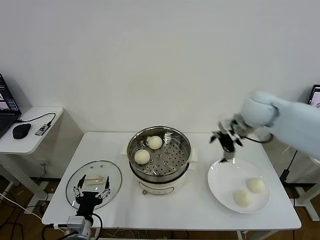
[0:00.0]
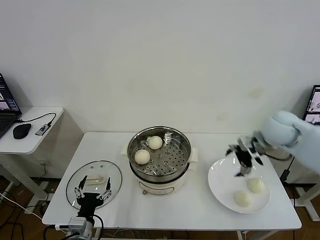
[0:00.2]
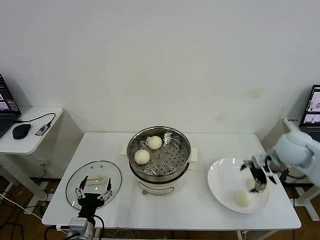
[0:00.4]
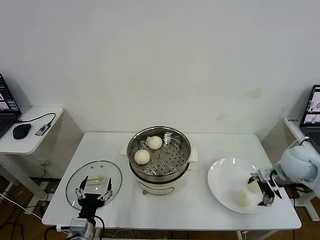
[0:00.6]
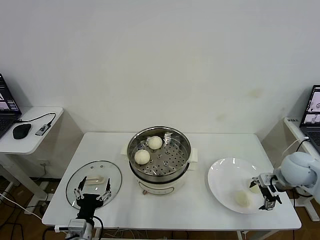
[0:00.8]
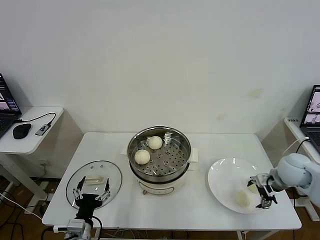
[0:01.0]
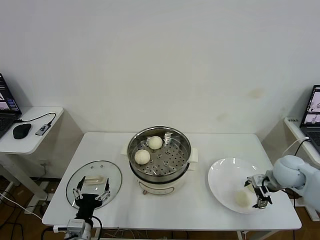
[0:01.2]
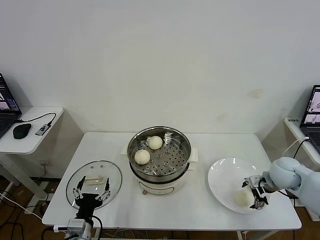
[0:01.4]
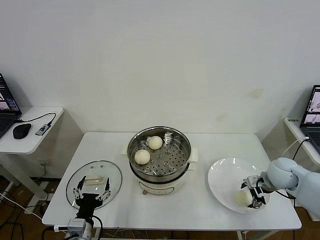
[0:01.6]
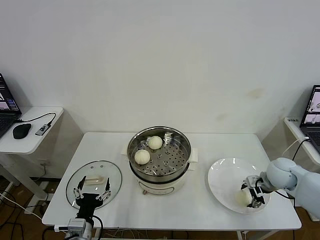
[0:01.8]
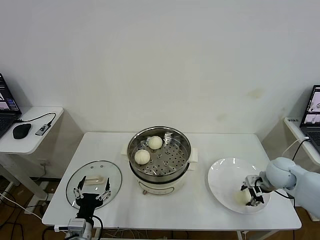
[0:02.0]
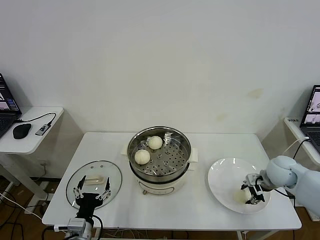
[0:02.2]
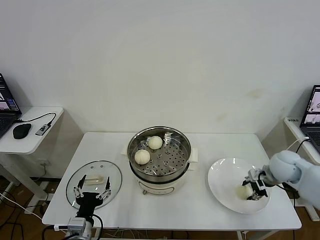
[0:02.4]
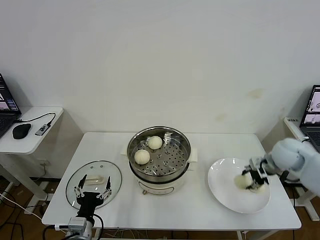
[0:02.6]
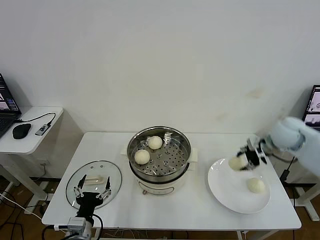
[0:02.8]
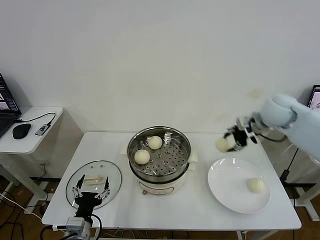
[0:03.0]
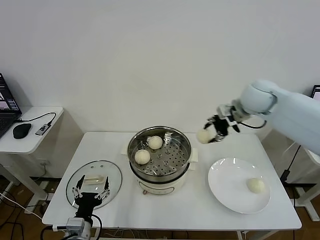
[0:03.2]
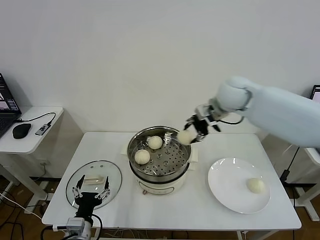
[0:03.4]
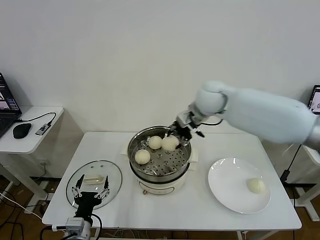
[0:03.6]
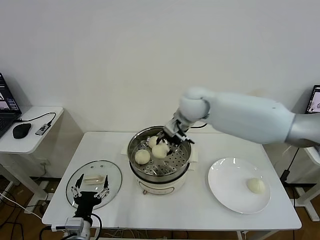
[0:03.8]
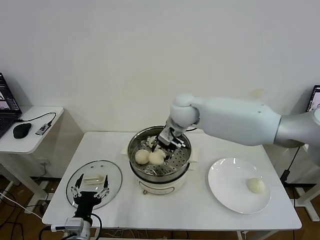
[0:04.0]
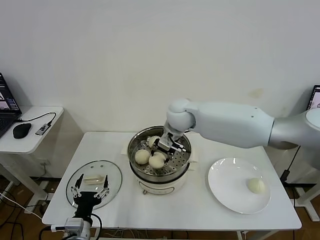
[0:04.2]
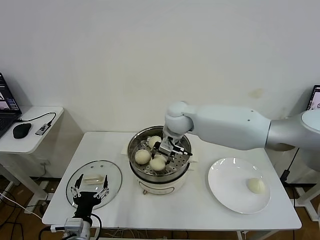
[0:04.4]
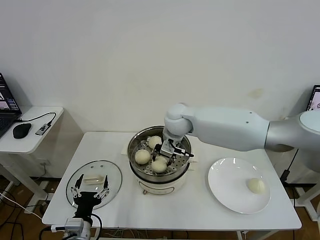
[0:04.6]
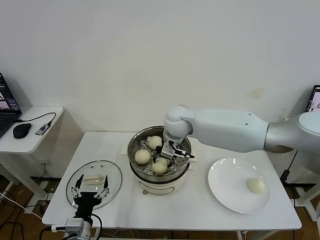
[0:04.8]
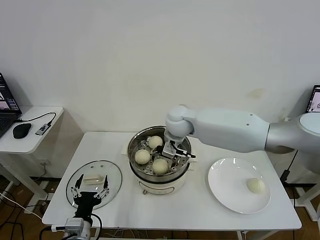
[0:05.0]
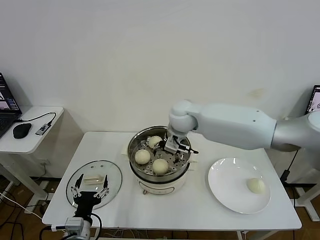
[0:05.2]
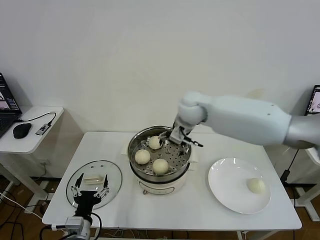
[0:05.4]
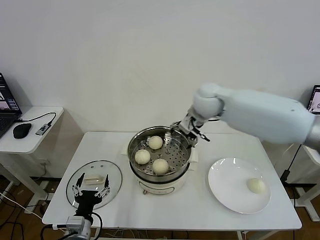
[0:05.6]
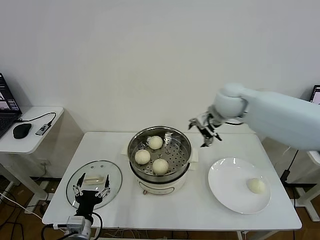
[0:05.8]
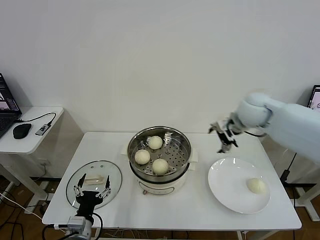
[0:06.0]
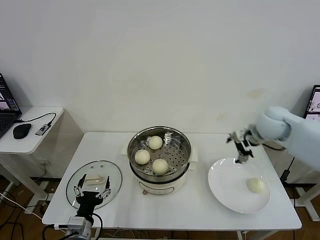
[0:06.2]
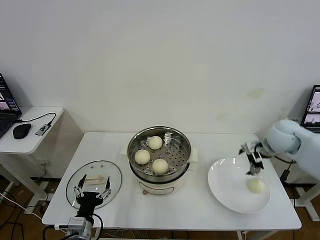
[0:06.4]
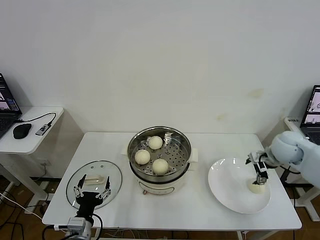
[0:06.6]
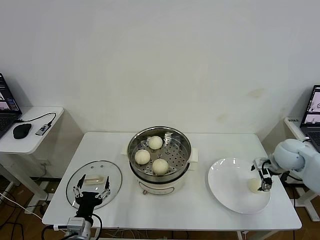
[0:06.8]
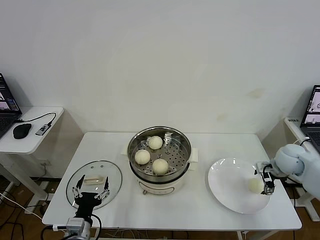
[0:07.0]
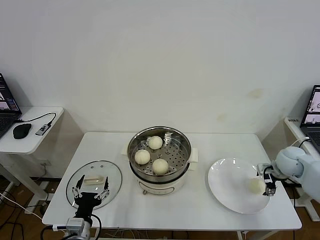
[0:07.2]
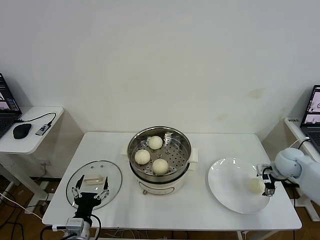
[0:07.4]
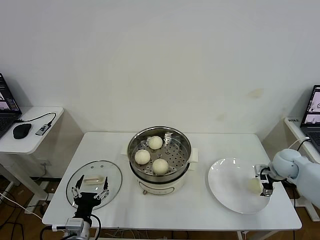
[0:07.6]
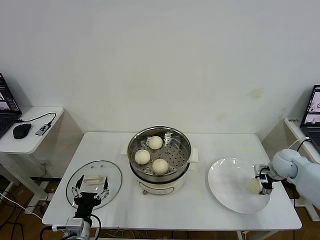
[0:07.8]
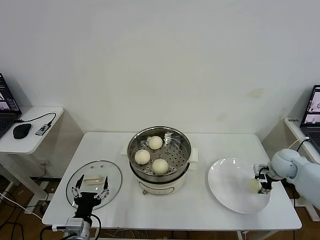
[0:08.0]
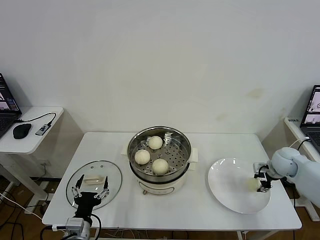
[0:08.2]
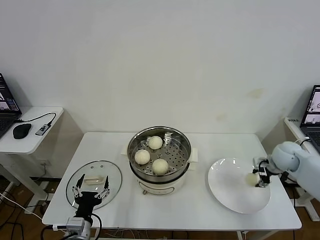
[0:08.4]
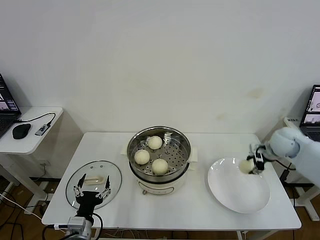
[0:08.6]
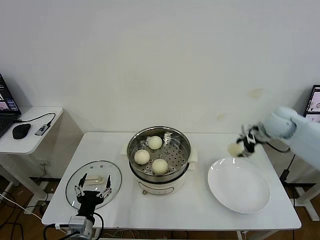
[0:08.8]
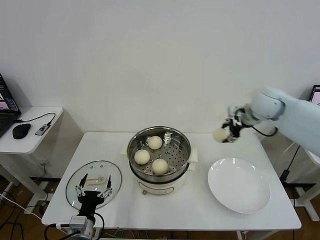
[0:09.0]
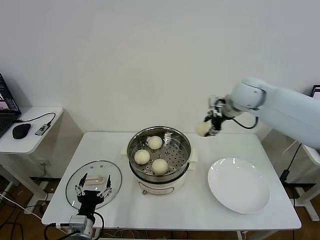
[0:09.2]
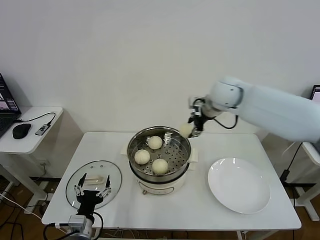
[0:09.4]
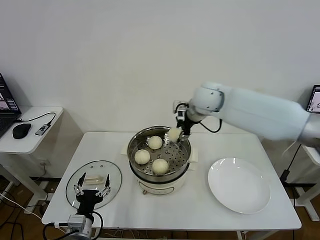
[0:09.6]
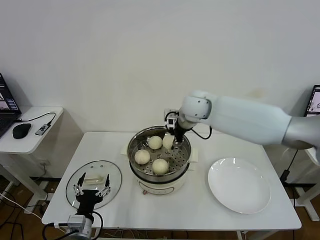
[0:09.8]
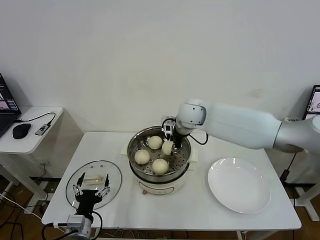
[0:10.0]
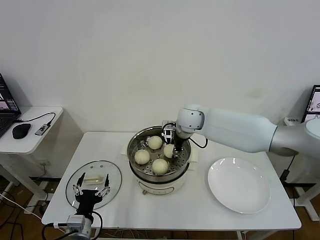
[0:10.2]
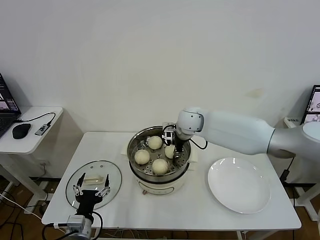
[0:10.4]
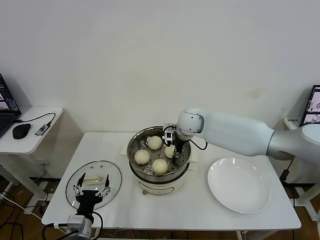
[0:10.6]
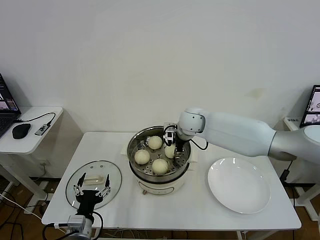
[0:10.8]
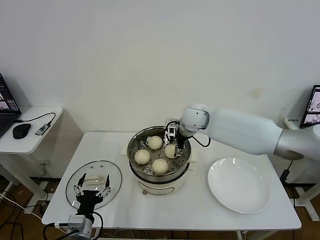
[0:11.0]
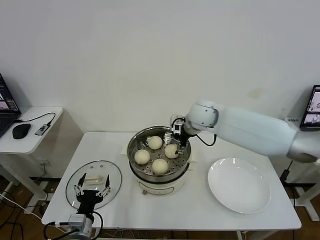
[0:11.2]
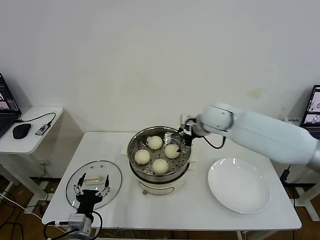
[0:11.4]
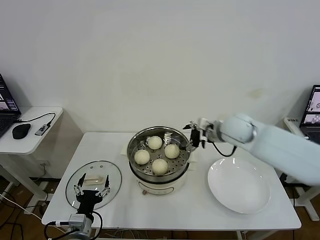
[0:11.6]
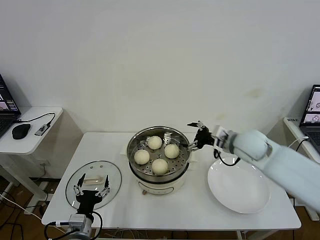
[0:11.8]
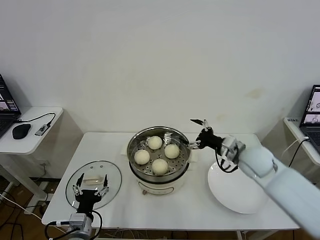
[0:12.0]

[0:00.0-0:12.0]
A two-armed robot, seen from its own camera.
Task of the whole recording: take steamed baozi put them in steamer then cover it.
Step, 0:00.0 to 0:02.0: Grasp the baozi in the plate with right gripper.
Step, 0:02.4 to 0:05.2: Place the baozi on the steamer with right gripper.
Step, 0:05.4 to 0:08.2: Grasp the baozi in the plate with right gripper.
Step, 0:08.4 to 0:11.0: Place the baozi on the steamer with right gripper.
0:00.0 to 0:01.6: The right gripper shifts approximately 20 cm downward, to the right and backward.
0:01.6 to 0:03.0: The right gripper shifts approximately 25 cm upward and forward, and closes its fingers.
0:03.0 to 0:04.4: The right gripper goes roughly 25 cm to the left.
0:04.4 to 0:06.0: The right gripper travels to the right by about 25 cm, and opens its fingers.
0:06.0 to 0:07.6: The right gripper moves downward and to the right, roughly 25 cm.
0:07.6 to 0:09.0: The right gripper is displaced upward and to the left by roughly 25 cm, and closes up.
0:09.0 to 0:10.4: The right gripper moves to the left and downward, approximately 25 cm.
0:10.4 to 0:12.0: The right gripper travels to the right and backward by approximately 25 cm, and opens its fingers.

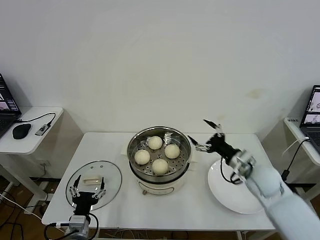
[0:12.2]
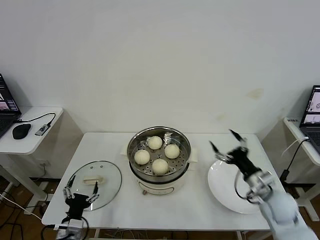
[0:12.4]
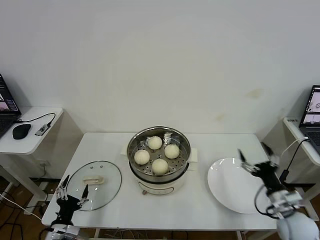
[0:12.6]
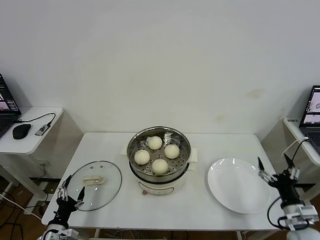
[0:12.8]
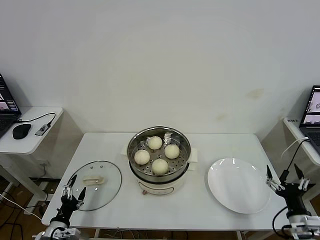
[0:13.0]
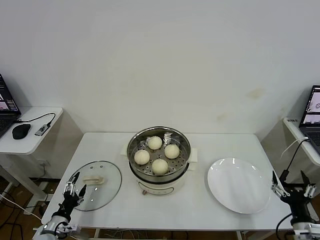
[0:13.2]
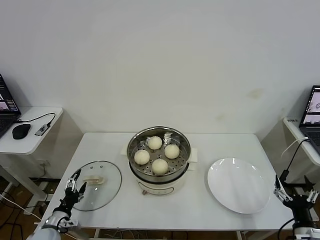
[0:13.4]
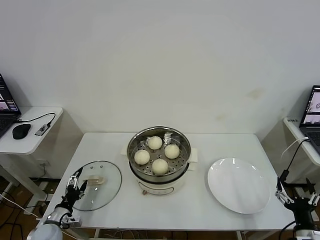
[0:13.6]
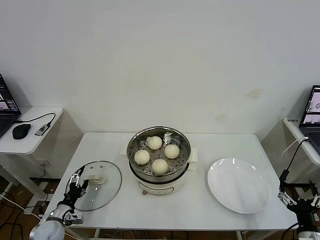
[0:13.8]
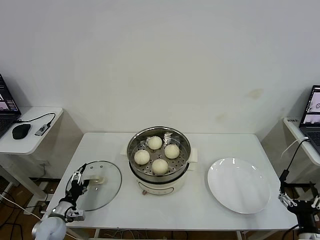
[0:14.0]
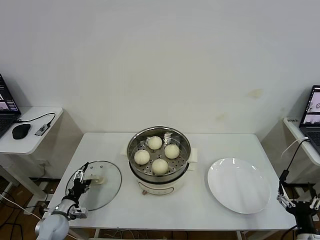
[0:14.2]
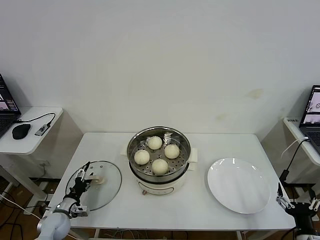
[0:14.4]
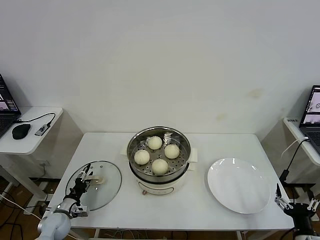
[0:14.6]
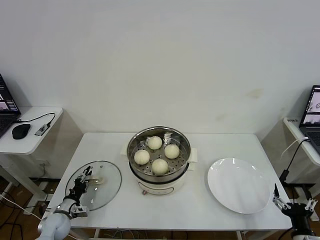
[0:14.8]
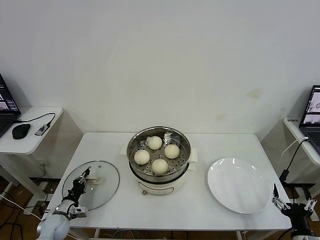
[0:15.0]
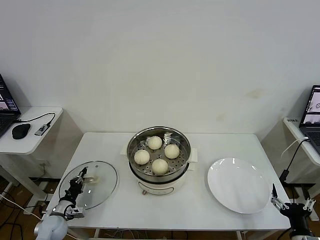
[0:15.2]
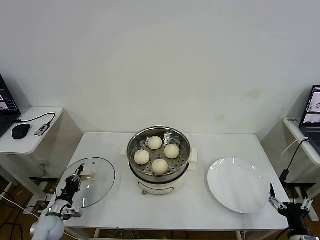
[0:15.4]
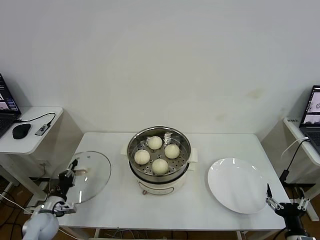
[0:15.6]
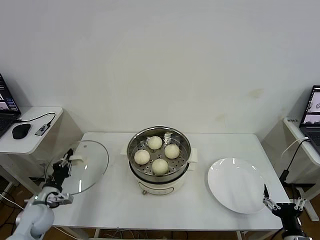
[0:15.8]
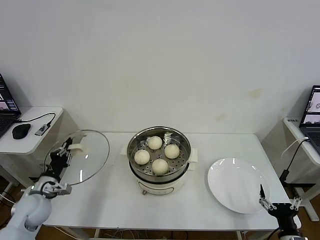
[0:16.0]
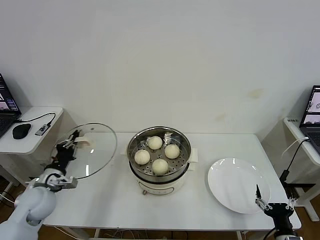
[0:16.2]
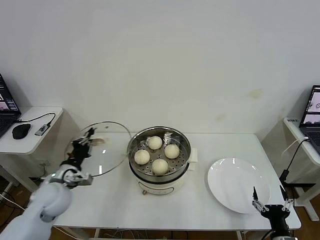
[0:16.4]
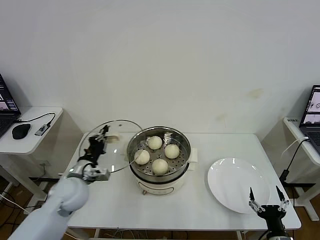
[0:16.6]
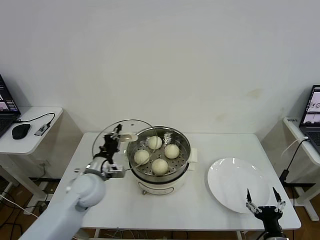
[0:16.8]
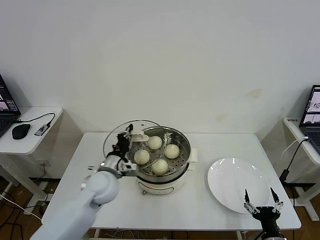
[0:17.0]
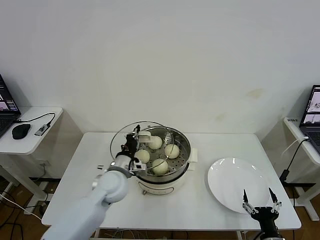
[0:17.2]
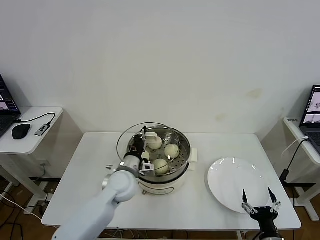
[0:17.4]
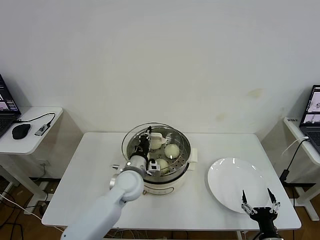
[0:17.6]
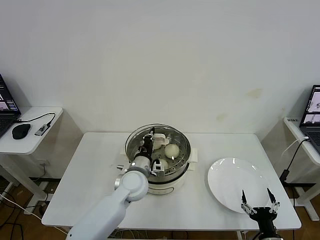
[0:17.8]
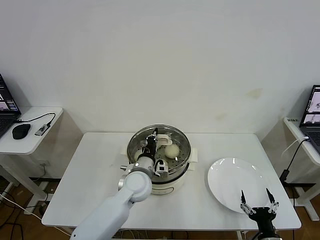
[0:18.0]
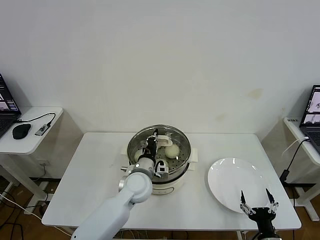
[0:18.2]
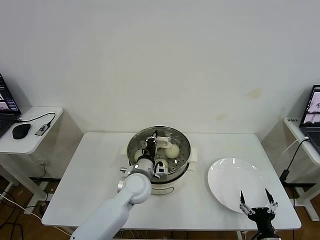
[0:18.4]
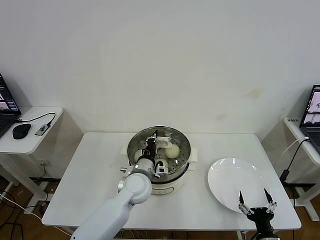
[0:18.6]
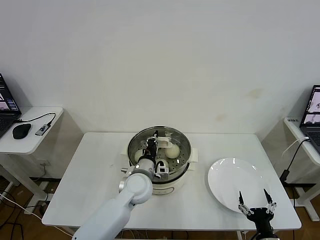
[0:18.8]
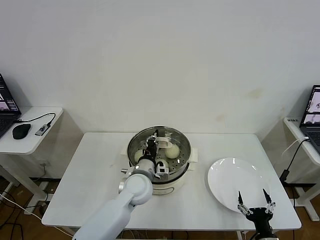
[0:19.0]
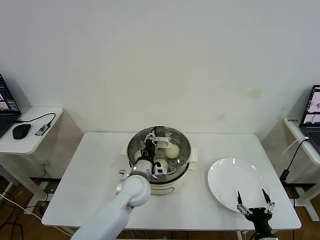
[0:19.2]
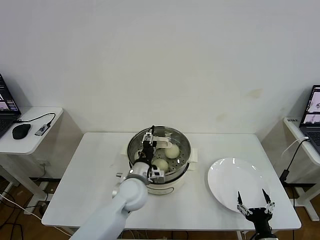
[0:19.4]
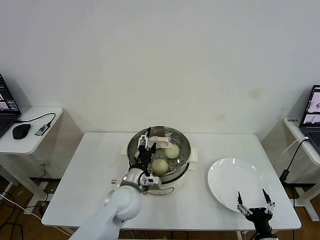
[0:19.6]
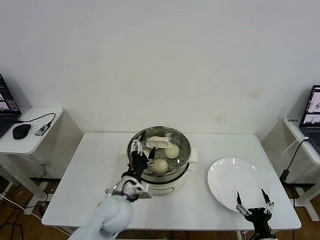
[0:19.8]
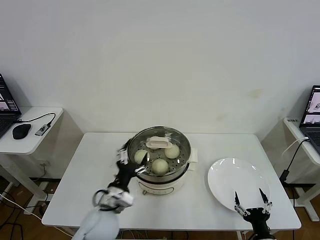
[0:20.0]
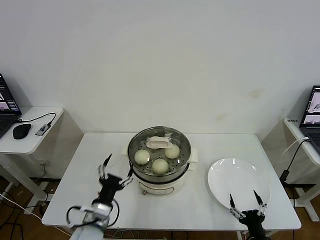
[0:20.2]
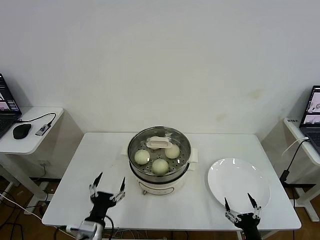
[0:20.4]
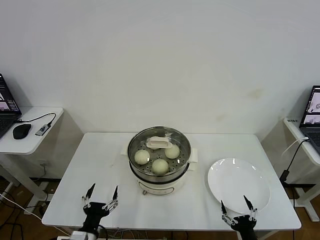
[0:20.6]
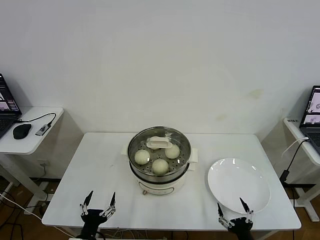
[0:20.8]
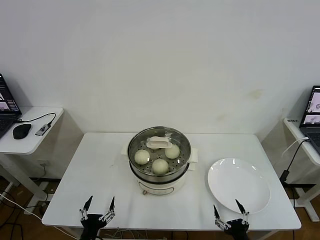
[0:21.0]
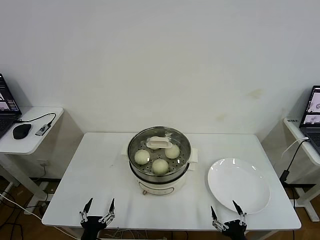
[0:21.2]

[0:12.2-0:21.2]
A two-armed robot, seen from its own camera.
Task of the whole recording: take steamed baozi put them in steamer then cover it.
Step, 0:12.2 to 0:15.2: Grasp the pot lid with left gripper.
Step, 0:15.4 to 0:19.8: Place the pot lid on the steamer with left gripper.
0:12.2 to 0:13.8: The left gripper moves to the left, downward and forward, roughly 15 cm, while the right gripper travels backward, to the right and downward by some 30 cm.
0:13.8 to 0:15.2: The left gripper closes.
0:15.2 to 0:16.6: The right gripper changes place by approximately 5 cm. The left gripper goes roughly 25 cm upward and to the right.
0:16.6 to 0:18.2: The left gripper heads to the right, covering some 20 cm.
0:18.2 to 0:19.8: The left gripper shifts roughly 10 cm backward, and opens up.
0:19.8 to 0:21.2: The right gripper changes place by roughly 5 cm, while the left gripper travels backward, to the left and downward by approximately 25 cm.

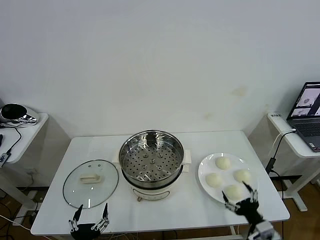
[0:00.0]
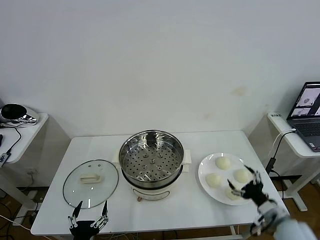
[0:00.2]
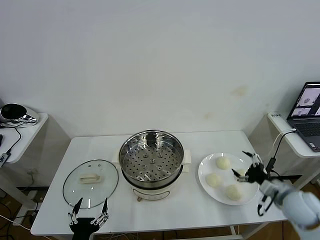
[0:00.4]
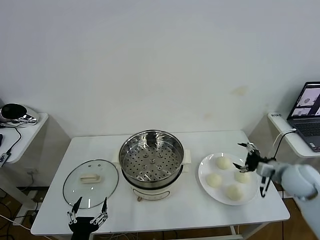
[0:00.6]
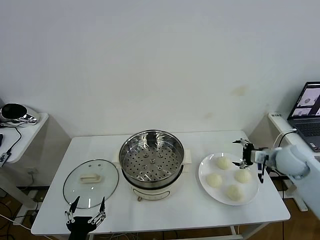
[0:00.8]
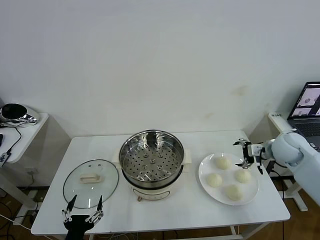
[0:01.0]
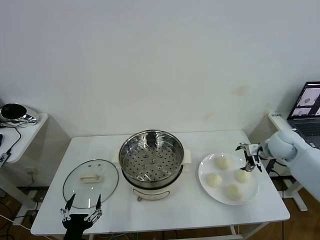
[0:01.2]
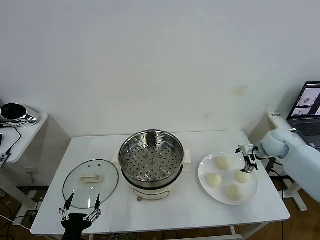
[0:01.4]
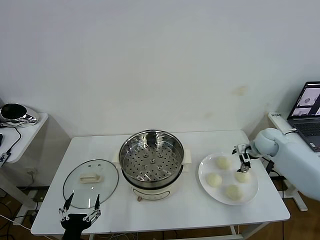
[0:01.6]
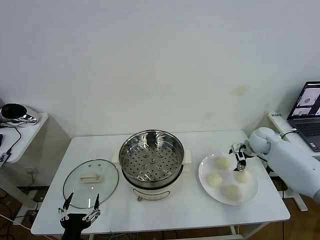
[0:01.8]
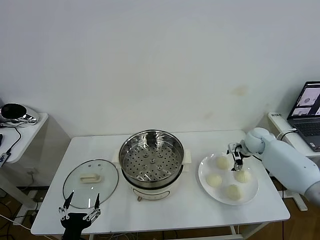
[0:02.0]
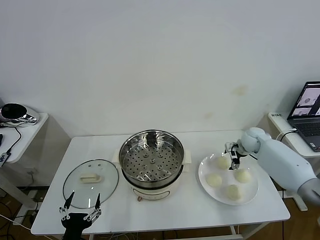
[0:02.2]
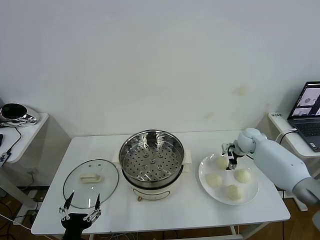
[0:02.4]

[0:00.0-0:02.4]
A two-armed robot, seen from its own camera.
Task of the whole recording: take steamed baozi put them in steamer then cover it.
0:01.2 to 0:02.4: The right gripper travels forward, downward and to the left by approximately 10 cm.
